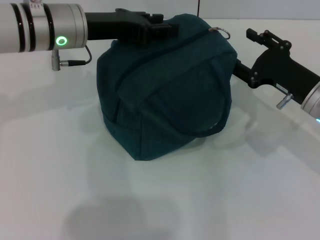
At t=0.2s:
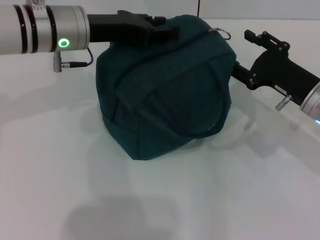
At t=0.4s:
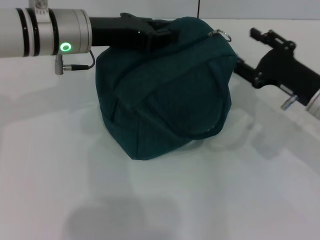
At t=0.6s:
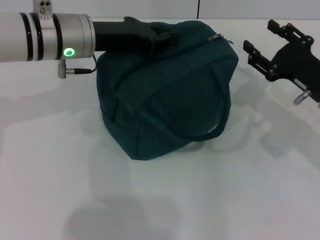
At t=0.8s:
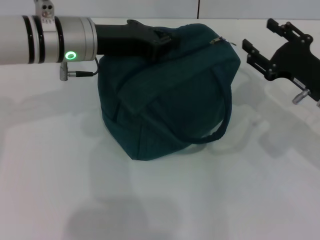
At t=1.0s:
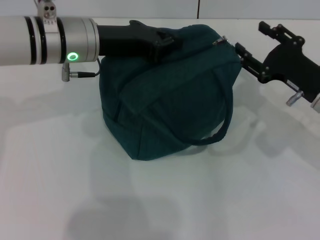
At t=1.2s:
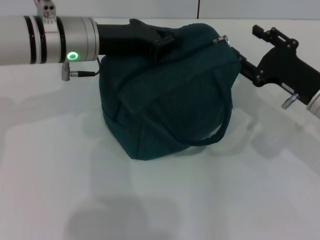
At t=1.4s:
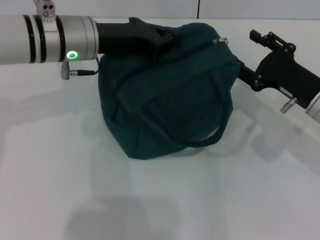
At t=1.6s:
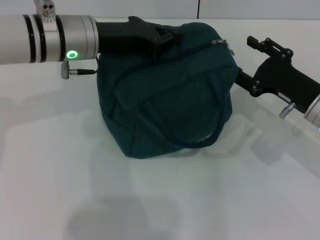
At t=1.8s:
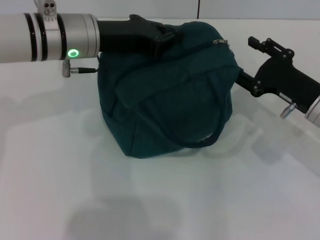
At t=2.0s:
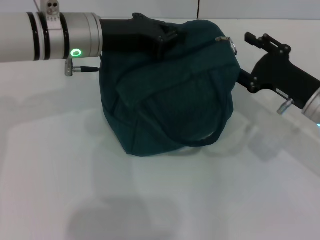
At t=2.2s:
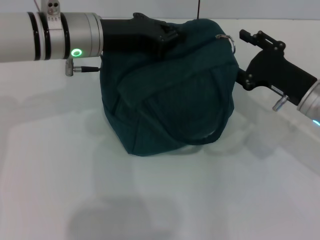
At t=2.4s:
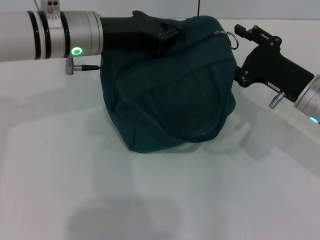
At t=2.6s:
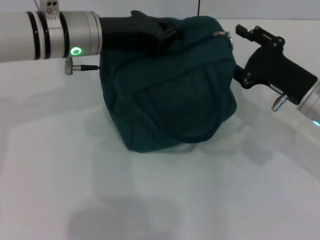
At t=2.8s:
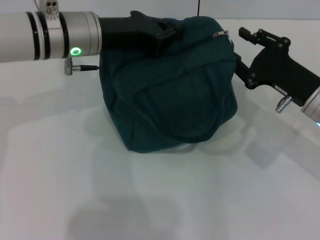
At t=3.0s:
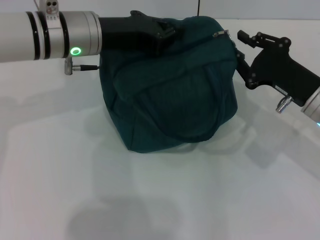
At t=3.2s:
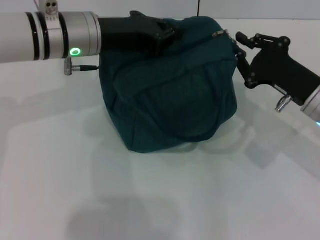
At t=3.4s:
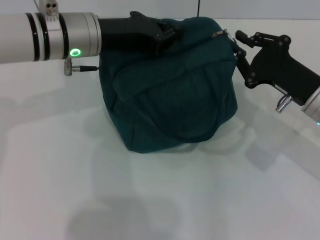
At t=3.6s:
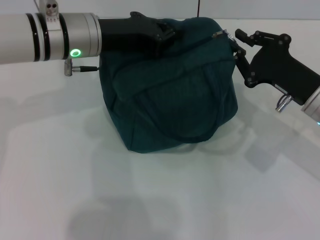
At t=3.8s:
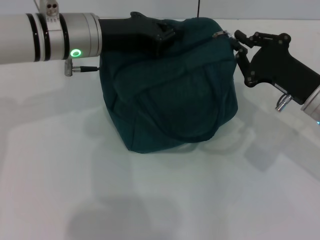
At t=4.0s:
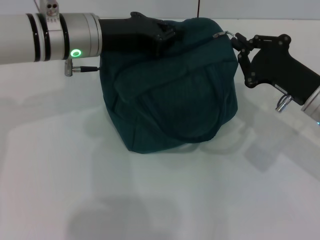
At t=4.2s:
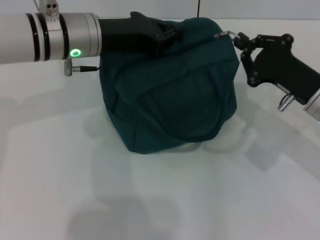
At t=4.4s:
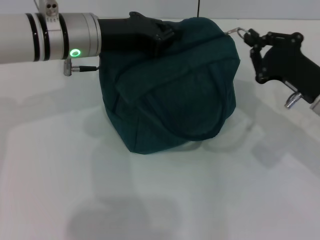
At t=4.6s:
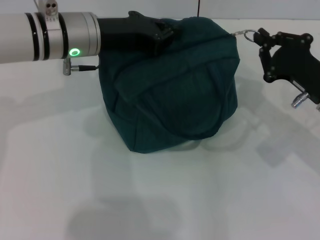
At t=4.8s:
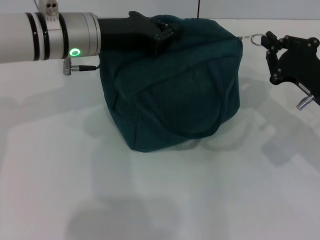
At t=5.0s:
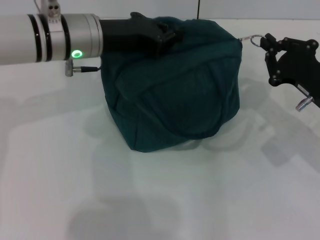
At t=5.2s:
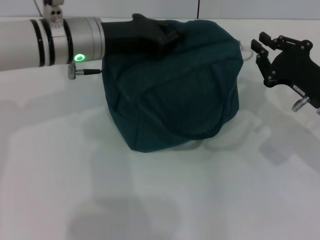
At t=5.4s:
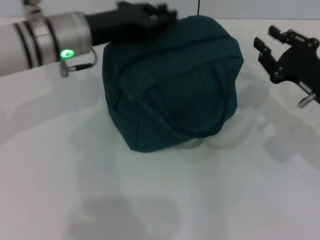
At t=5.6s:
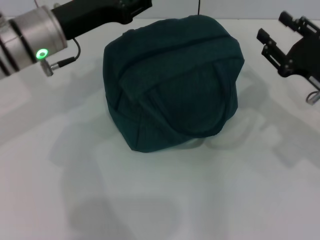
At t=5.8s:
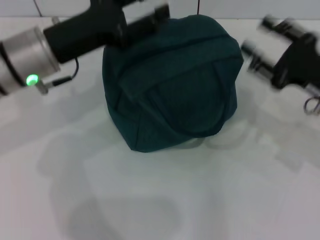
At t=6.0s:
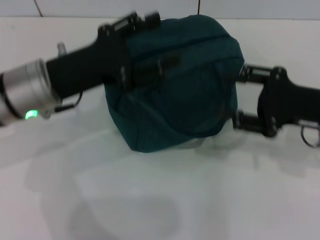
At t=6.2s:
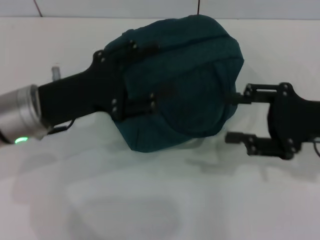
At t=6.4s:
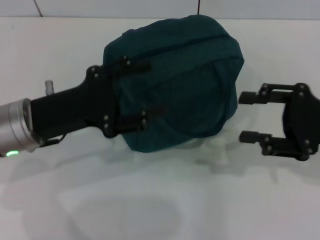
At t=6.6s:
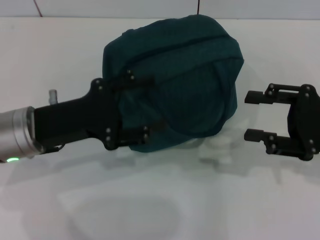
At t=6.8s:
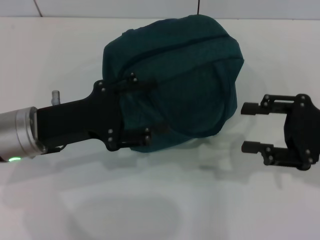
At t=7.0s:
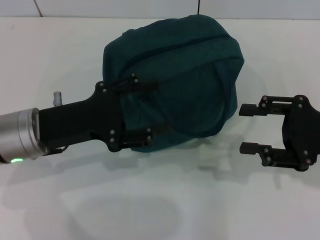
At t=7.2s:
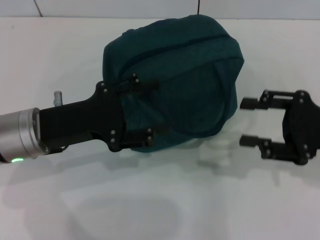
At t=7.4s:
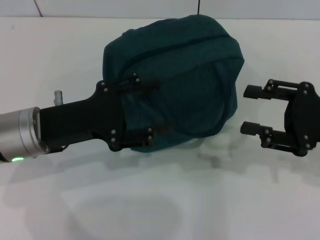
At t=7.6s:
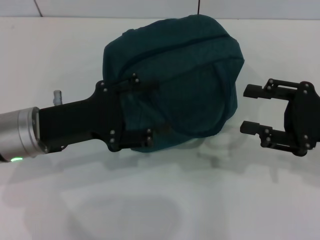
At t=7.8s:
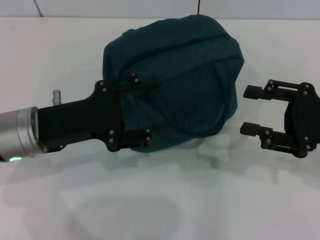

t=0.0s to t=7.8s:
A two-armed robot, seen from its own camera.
Step, t=0.0s to t=5.0s: Zip up the lunch bag with your right hand.
Step, t=5.2s to t=5.6s: Hold the lunch bag with your left hand.
t=0.0s to t=1.6s: The left gripper closes its fingers.
t=1.6s to t=3.2s: The right gripper closes up.
t=3.2s to t=4.6s: There are only small adjustments of the grippers.
t=4.6s to t=6.2s: The right gripper moves upward, approximately 5 cm, and opens its fingers; the left gripper goes about 10 cm backward and to the left, and opens up.
t=6.2s to t=7.8s: There are only small adjustments of the grippers.
